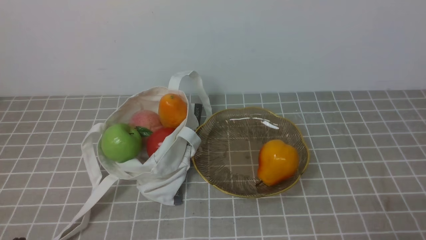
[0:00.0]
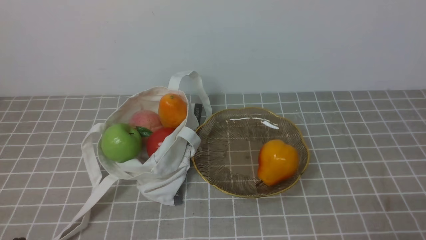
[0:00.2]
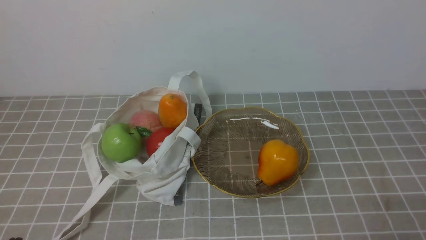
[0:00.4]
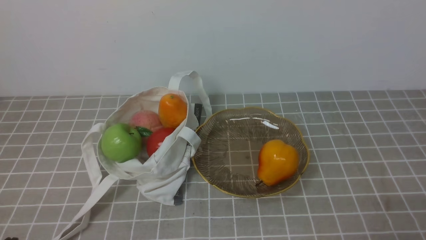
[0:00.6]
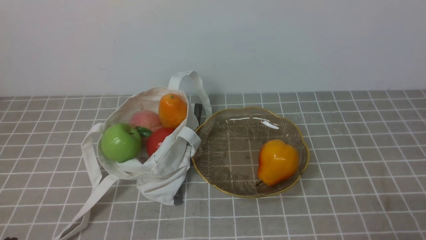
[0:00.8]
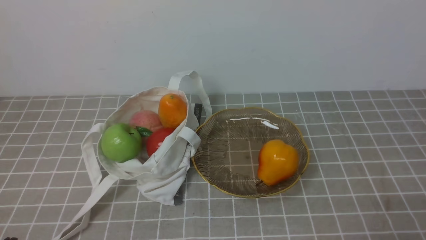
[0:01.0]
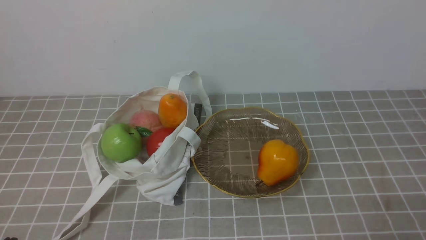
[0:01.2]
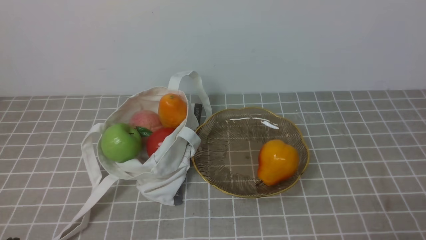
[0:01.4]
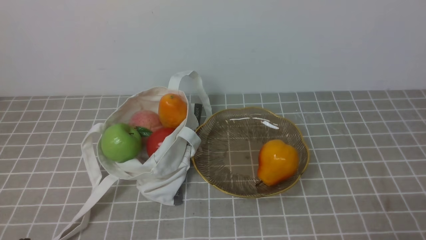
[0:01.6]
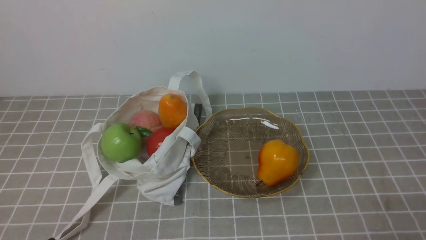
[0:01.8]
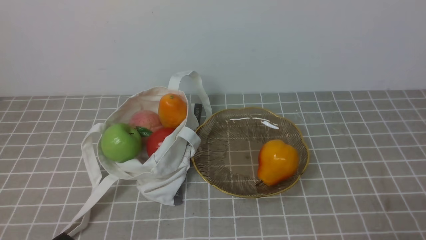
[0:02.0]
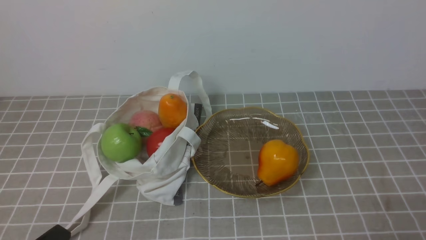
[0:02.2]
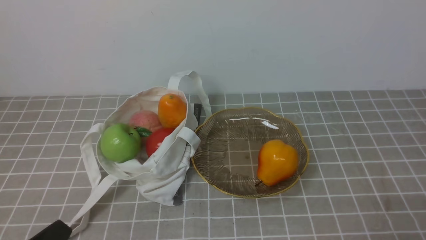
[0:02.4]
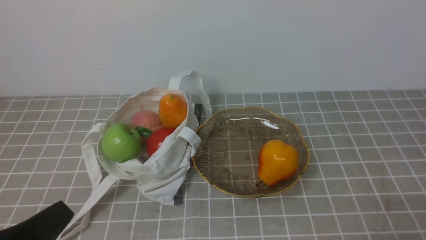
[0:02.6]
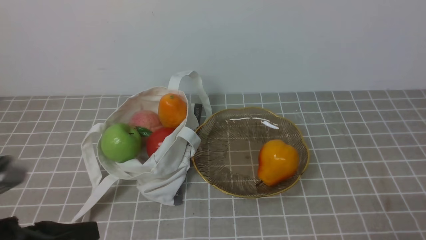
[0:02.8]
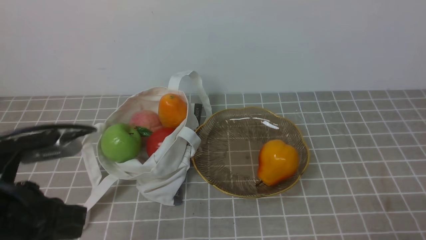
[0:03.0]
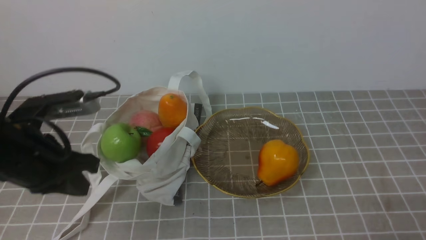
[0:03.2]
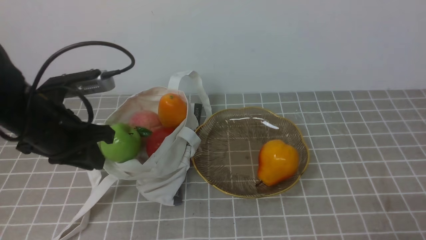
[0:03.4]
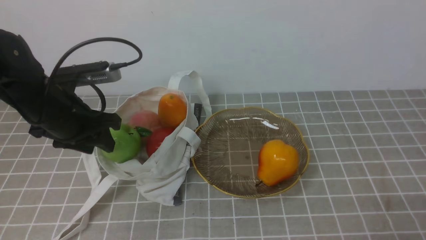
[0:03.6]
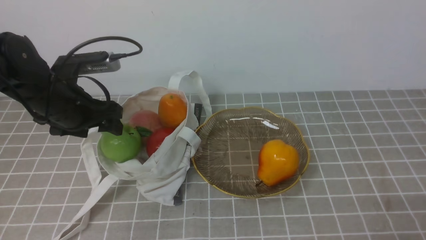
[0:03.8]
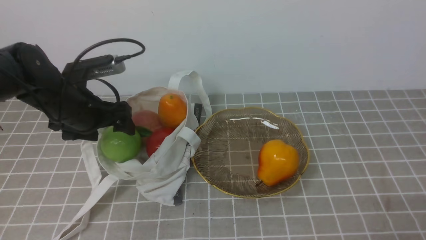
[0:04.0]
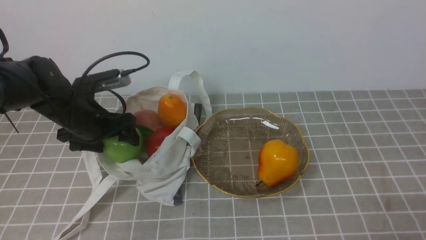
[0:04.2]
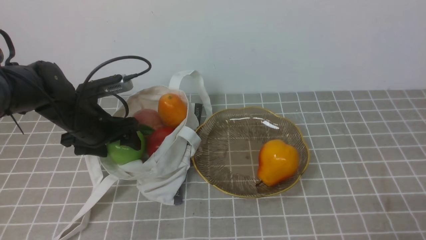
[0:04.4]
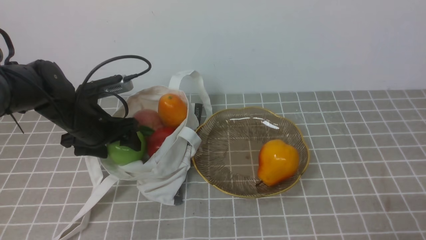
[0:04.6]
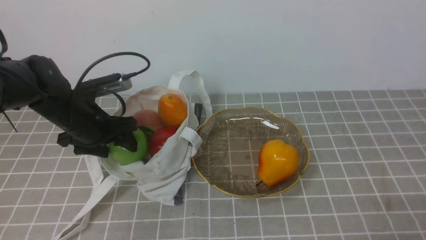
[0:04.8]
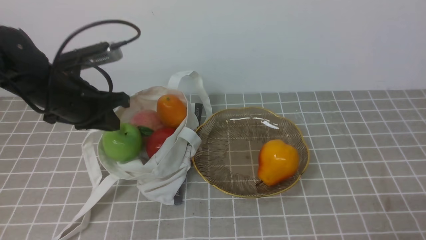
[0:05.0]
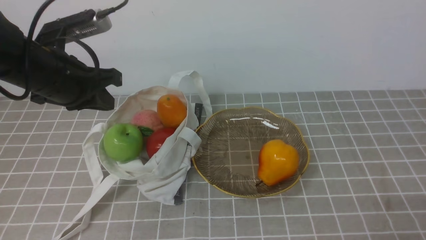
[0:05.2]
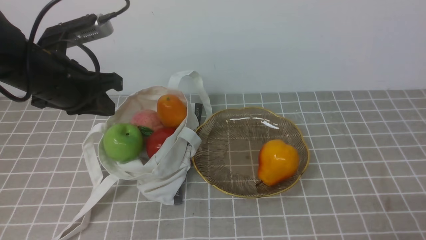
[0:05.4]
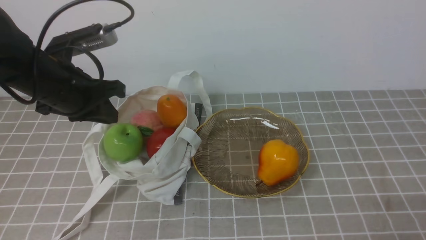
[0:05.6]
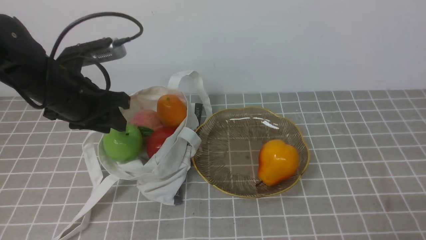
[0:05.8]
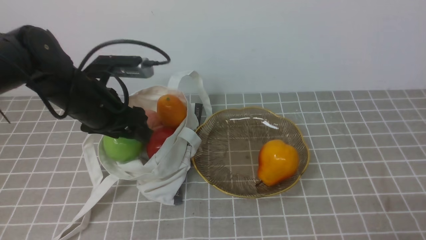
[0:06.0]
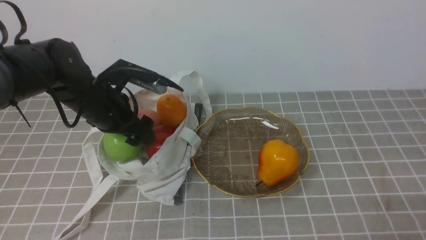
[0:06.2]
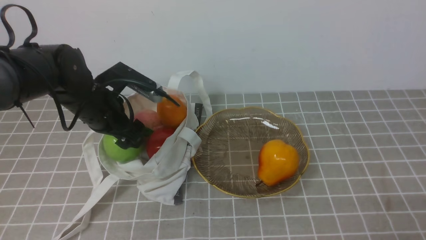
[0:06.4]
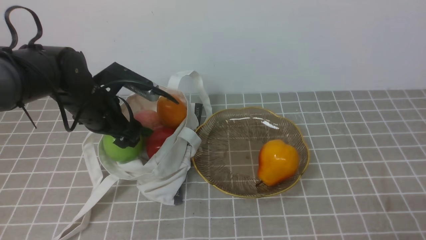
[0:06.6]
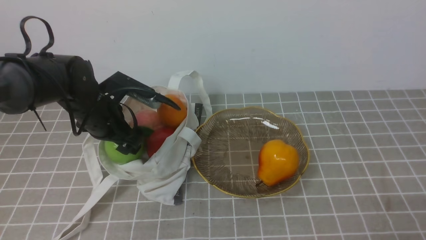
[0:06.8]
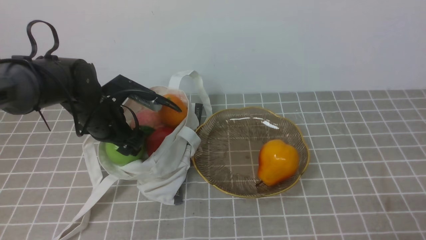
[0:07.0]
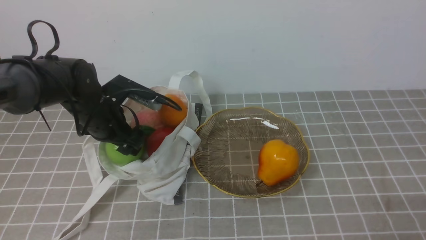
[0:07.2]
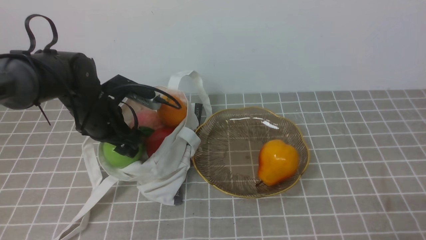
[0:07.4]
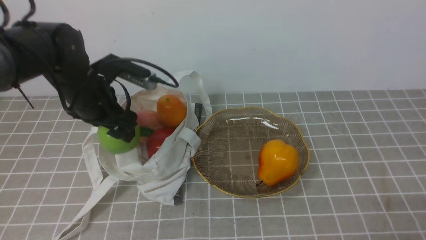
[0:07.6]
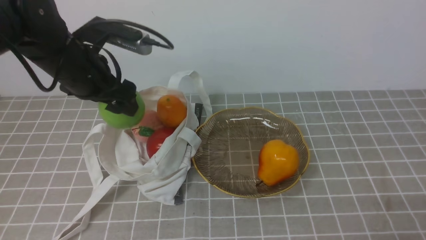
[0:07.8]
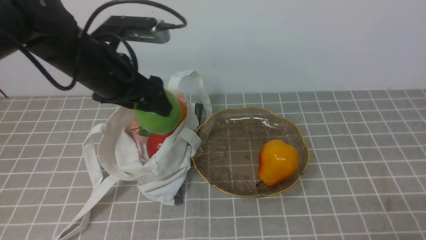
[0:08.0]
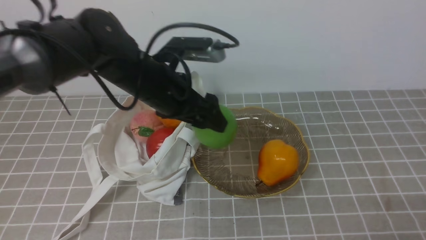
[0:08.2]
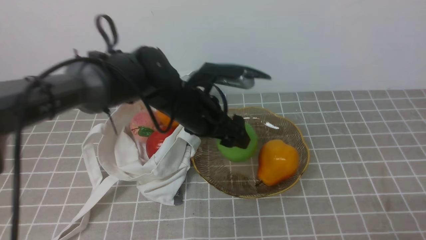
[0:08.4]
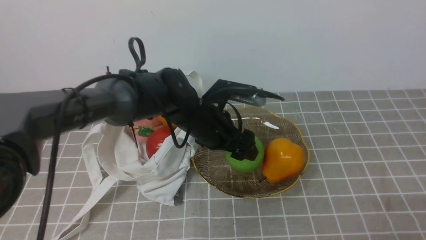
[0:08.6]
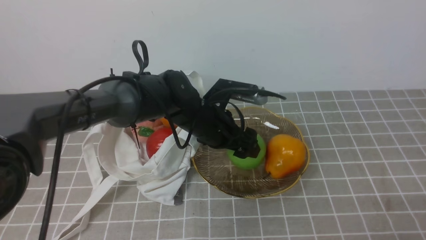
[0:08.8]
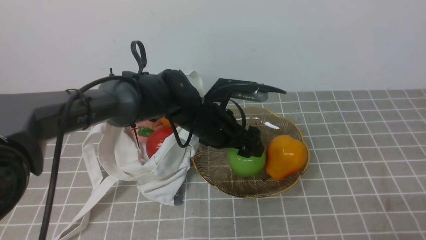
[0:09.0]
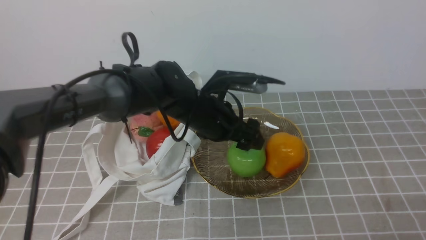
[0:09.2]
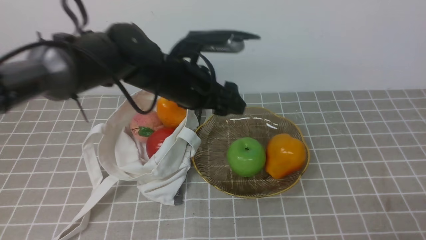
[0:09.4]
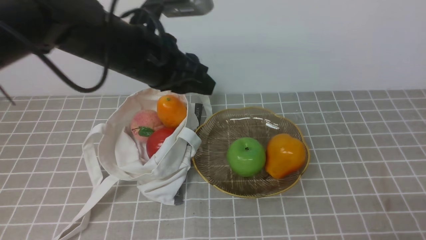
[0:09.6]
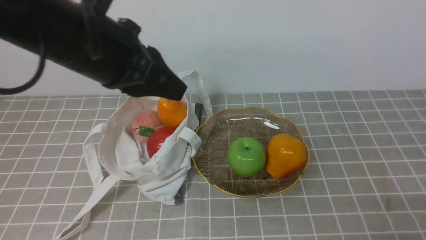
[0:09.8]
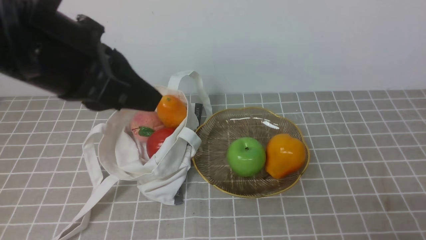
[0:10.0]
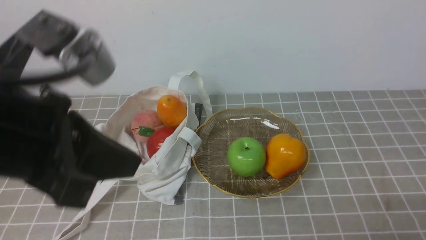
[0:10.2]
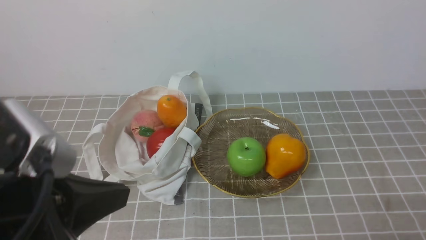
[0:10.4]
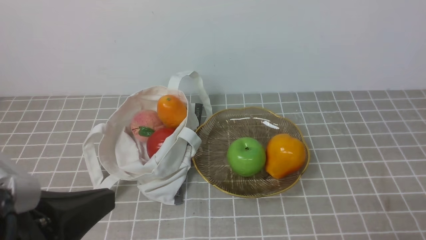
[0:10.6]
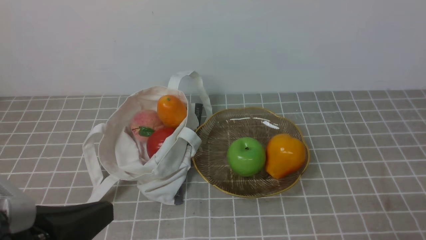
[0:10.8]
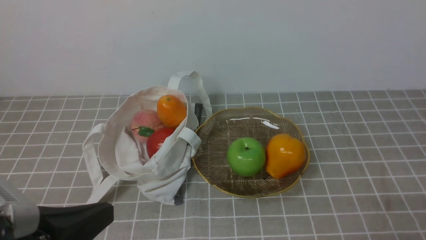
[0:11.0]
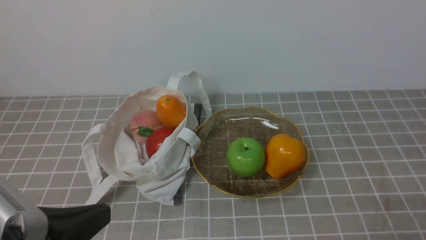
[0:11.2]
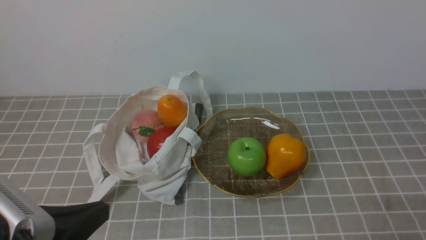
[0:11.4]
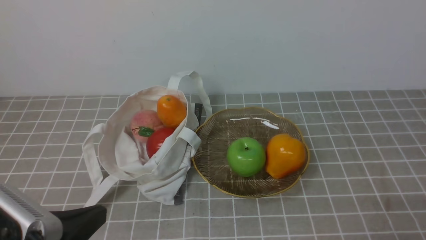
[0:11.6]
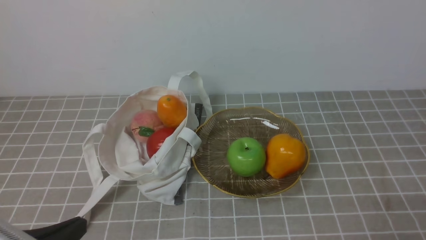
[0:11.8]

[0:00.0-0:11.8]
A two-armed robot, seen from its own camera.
Step, 0:00.0 to 0:07.8: use the left arm to grab an apple from the bag.
Step, 0:08.0 to 0:09.0: use the left arm to put the apple into the empty plate on the right.
0:01.4 to 0:03.0: The left gripper travels forward and upward by some 15 cm.
0:03.0 to 0:04.4: The left gripper is displaced forward and downward by some 20 cm, and opens its fingers.
0:04.4 to 0:06.0: The left gripper heads upward, covering about 5 cm, and closes, then opens again.
0:06.0 to 0:07.4: The grippers stay close to where they were, moving slightly.
0:07.4 to 0:08.8: The left gripper moves to the right, some 20 cm.
0:08.8 to 0:10.4: The left gripper shifts roughly 35 cm backward, to the left and upward, and closes up.
0:10.4 to 0:11.8: The left gripper heads downward, covering roughly 10 cm.

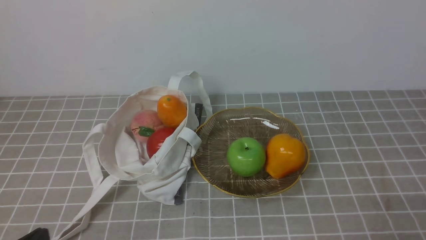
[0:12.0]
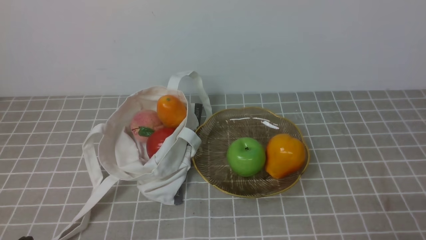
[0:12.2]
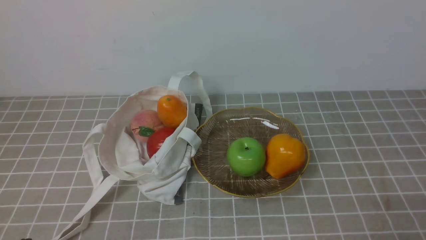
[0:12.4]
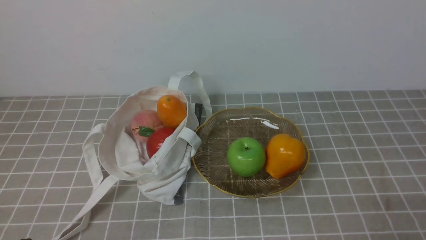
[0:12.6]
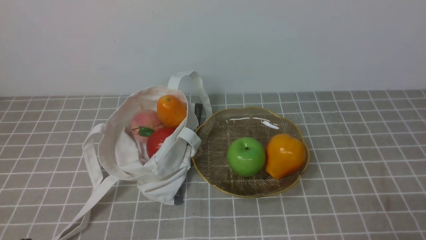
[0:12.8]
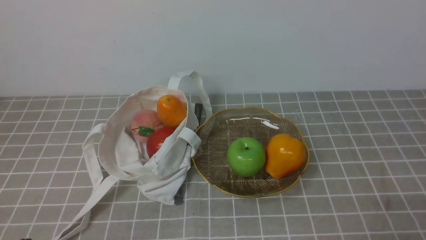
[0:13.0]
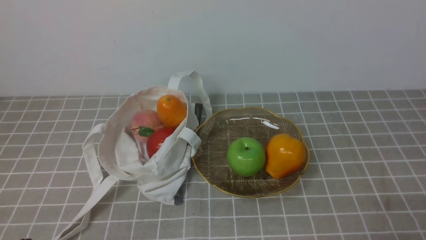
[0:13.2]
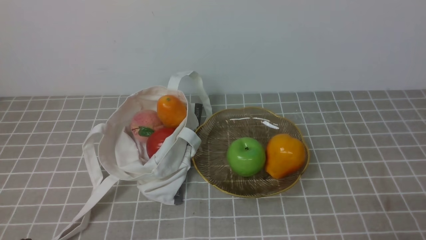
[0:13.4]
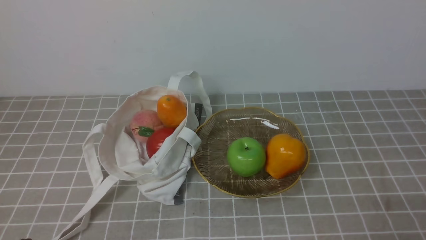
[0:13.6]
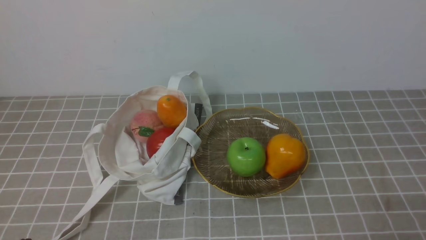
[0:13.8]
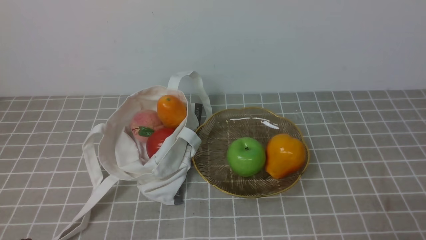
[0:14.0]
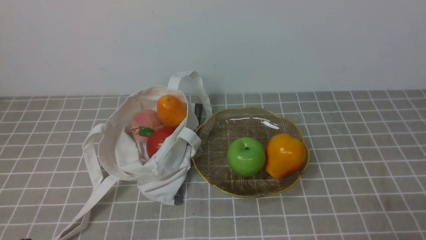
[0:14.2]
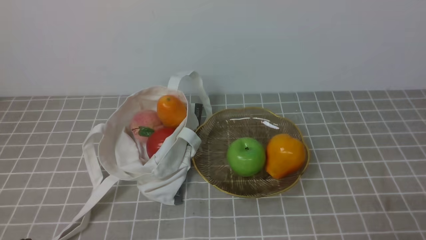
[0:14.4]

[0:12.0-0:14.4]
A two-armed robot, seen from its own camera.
0:13.2 to 0:14.4: Both grippers stay put.

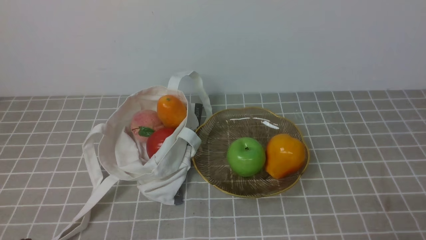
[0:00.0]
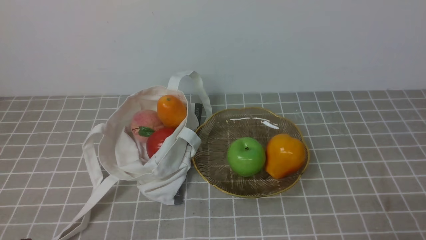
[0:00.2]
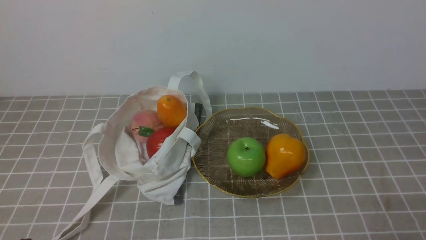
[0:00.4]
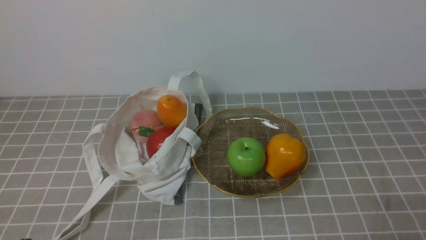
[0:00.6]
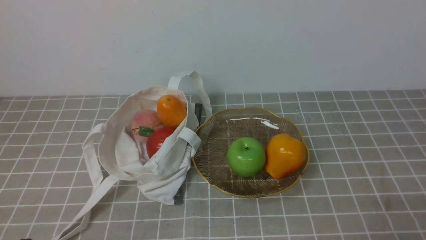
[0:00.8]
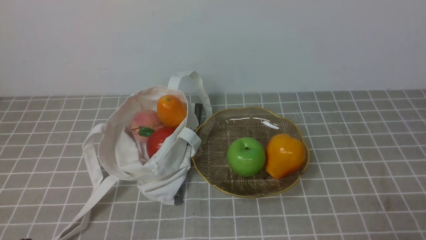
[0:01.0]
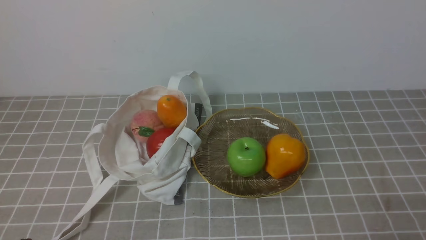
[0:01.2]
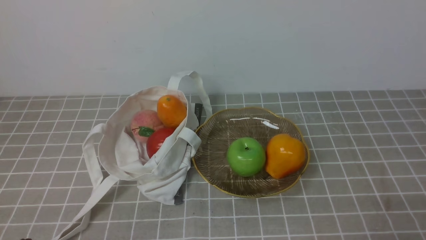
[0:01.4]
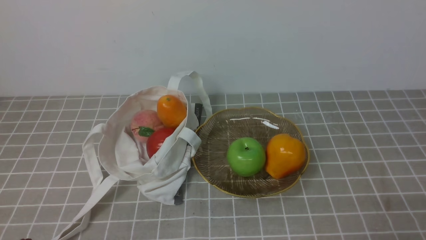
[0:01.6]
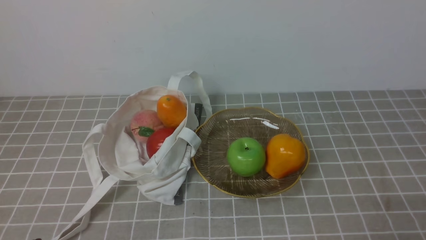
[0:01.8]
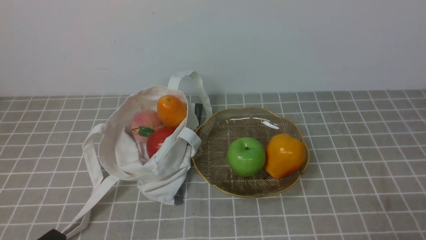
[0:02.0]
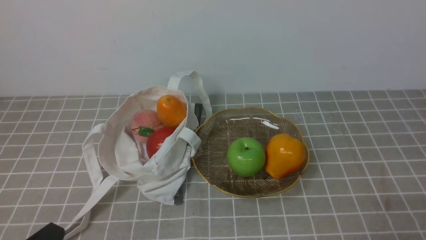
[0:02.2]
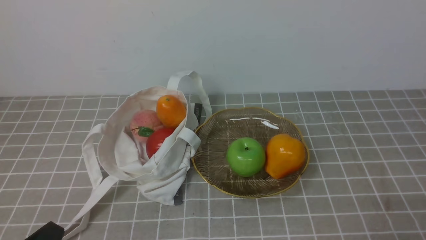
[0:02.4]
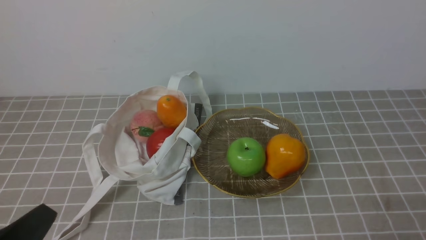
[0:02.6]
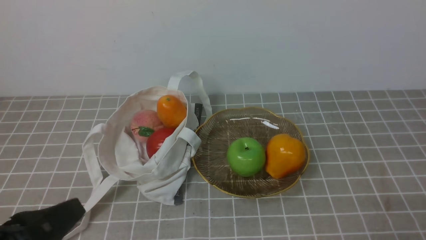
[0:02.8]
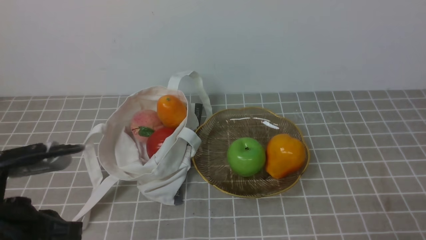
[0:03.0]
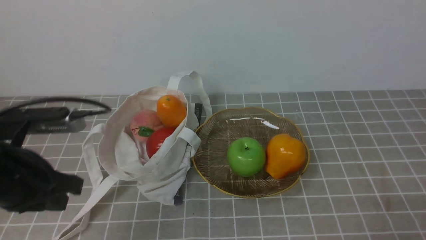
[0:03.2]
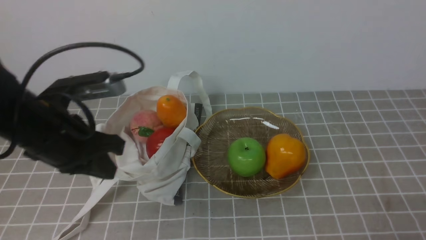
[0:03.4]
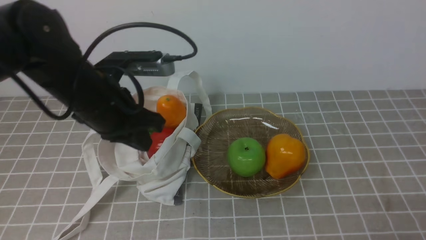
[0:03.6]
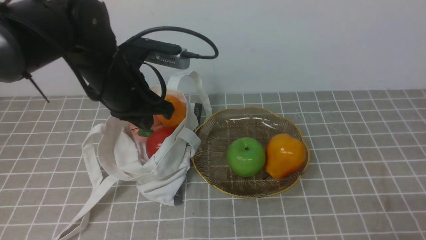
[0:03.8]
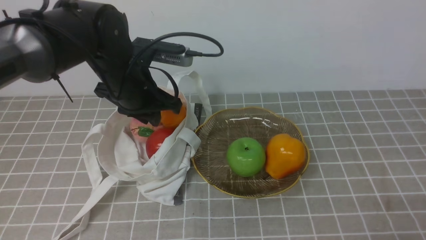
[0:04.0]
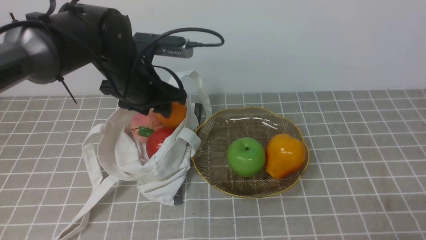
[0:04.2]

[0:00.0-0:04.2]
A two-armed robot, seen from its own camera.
0:01.4 to 0:02.8: The left gripper travels upward by approximately 5 cm.
0:02.8 to 0:04.2: The left gripper moves forward, about 30 cm, and opens.
